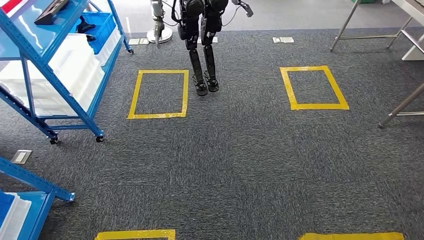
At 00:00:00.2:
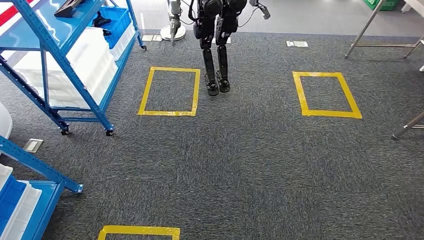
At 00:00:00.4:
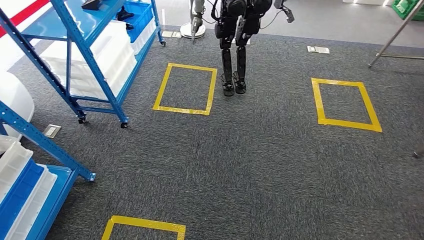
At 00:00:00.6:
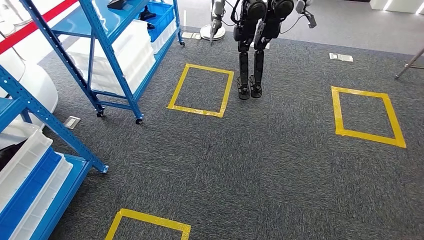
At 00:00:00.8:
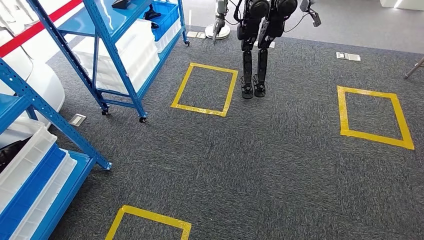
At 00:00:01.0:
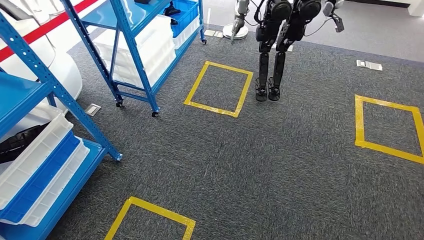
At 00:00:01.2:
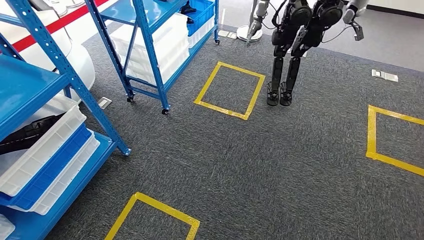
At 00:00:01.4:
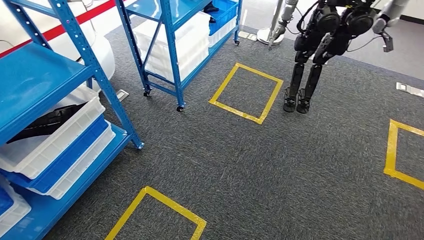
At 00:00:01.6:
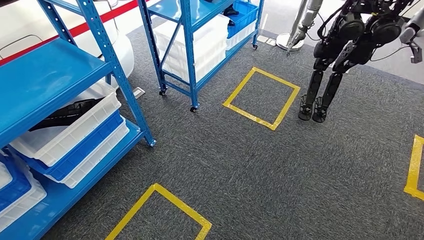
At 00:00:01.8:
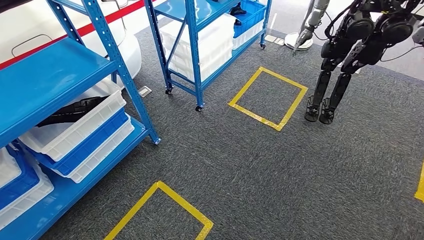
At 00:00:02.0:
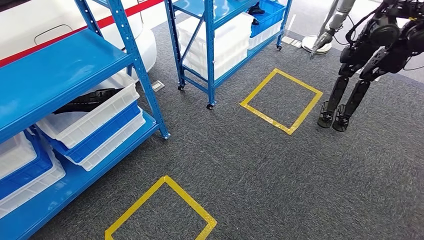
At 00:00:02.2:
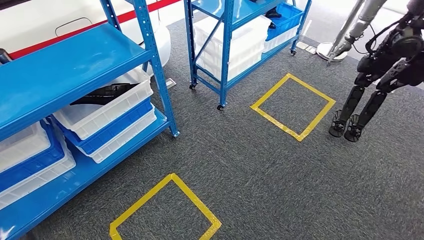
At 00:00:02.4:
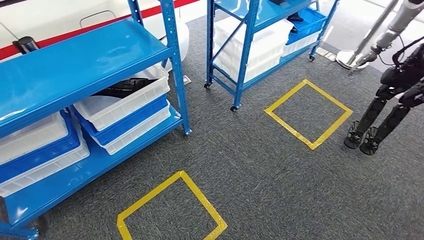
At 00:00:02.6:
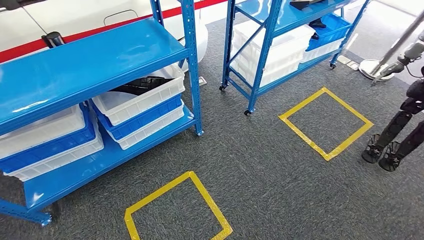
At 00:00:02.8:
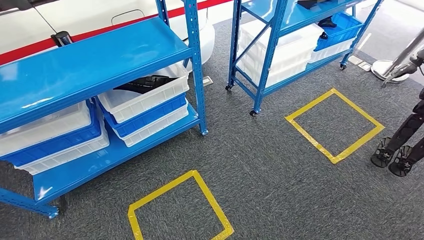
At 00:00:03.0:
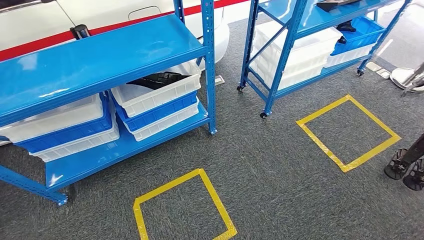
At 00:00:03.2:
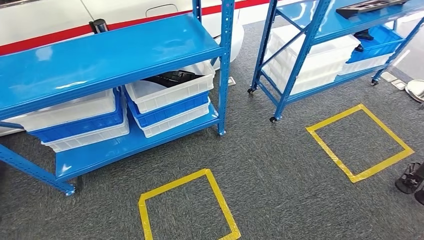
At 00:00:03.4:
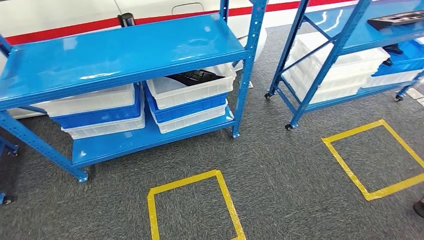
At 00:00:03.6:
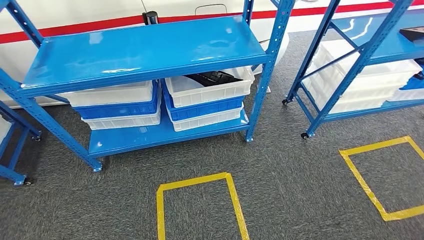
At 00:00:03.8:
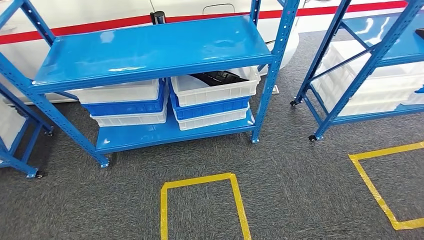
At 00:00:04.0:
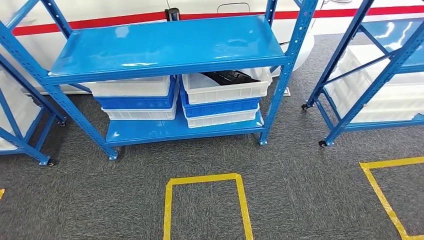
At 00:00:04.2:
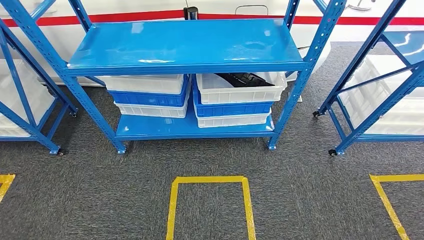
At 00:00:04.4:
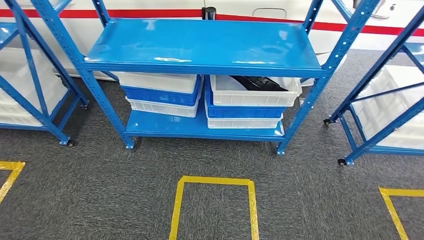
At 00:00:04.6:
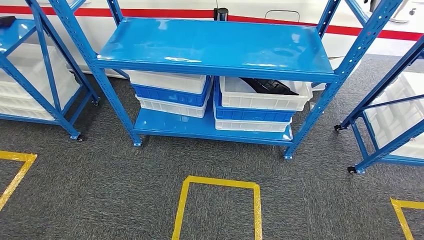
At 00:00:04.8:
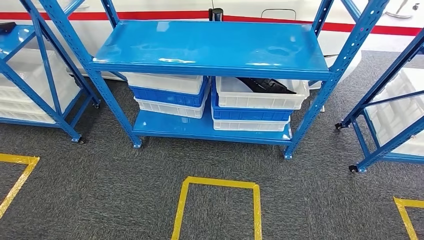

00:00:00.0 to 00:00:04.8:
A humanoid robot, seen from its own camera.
Step, 00:00:00.0 to 00:00:04.6: Return to the initial position at the shelf.
